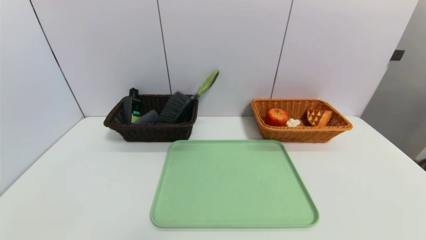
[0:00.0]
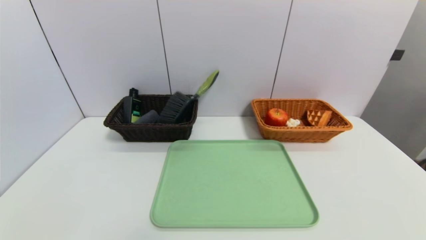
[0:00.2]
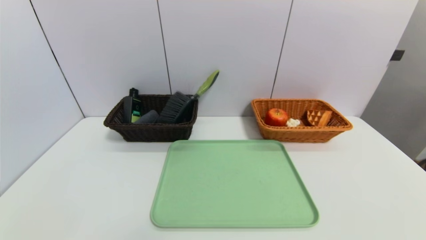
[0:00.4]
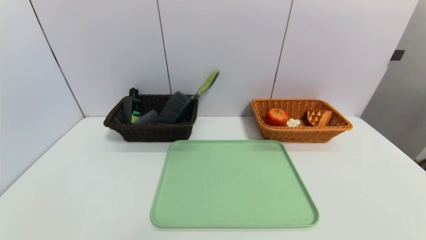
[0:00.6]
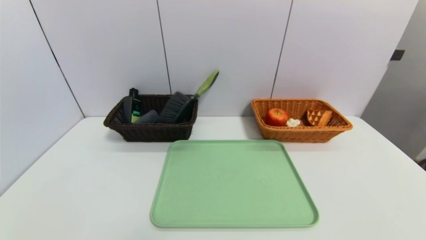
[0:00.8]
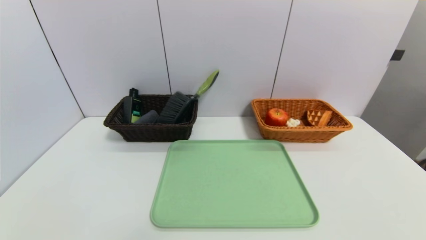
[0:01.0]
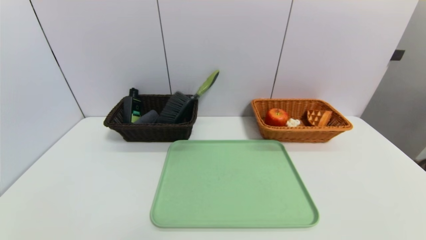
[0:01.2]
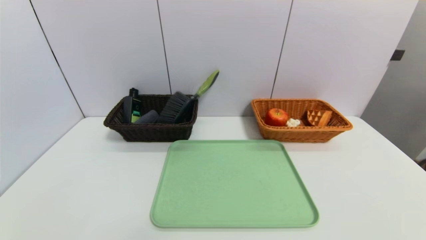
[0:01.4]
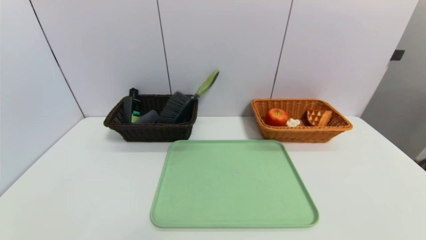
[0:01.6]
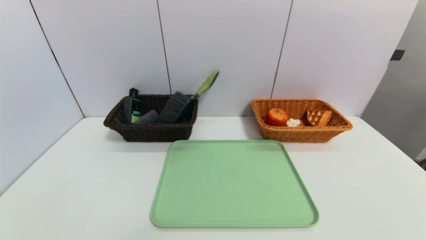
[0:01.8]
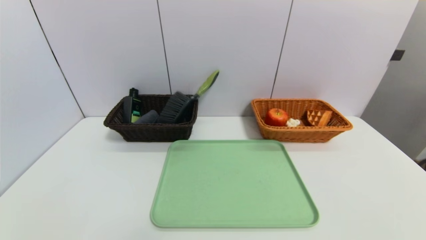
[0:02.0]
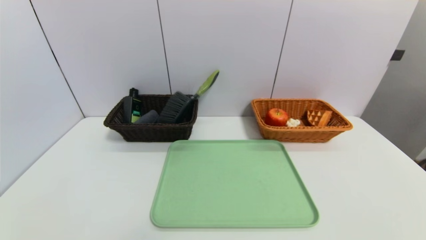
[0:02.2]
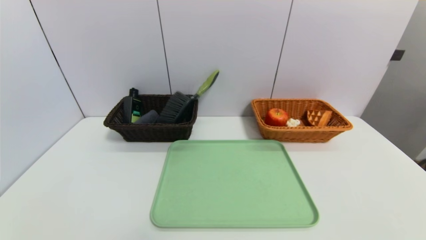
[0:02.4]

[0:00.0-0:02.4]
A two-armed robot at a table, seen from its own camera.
Task of the whole recording: place the food in the right basket with the right gripper, and place the non food items in the left basket with the left gripper.
0:01.2 to 0:02.4: Neither gripper changes place.
